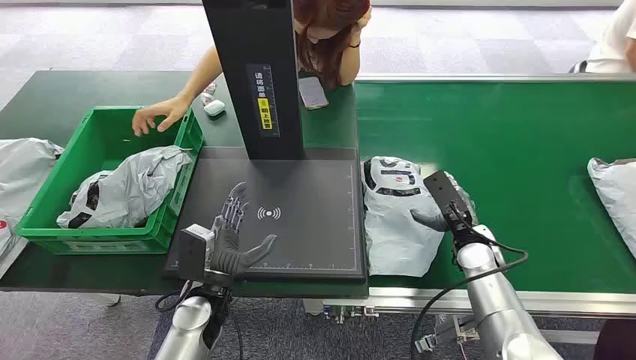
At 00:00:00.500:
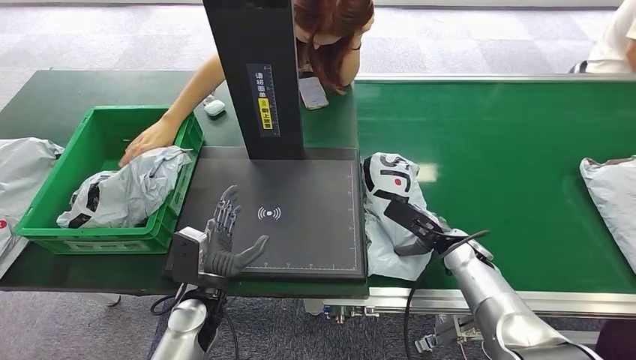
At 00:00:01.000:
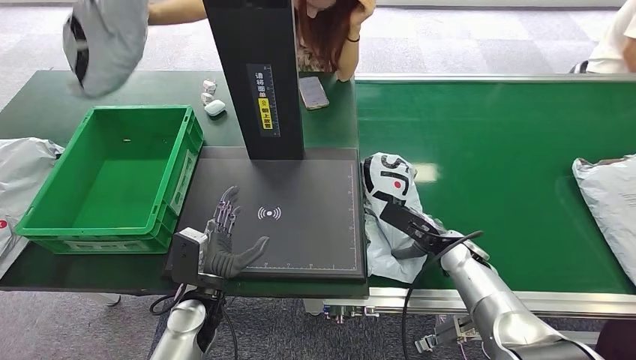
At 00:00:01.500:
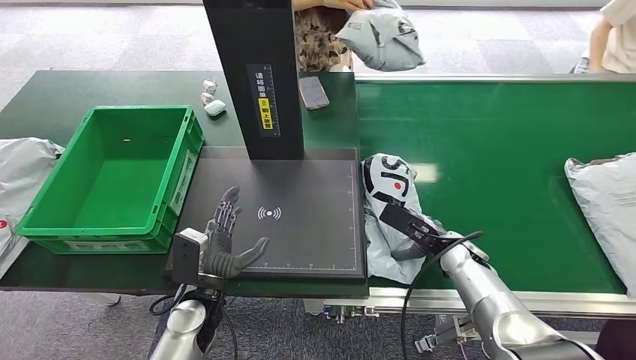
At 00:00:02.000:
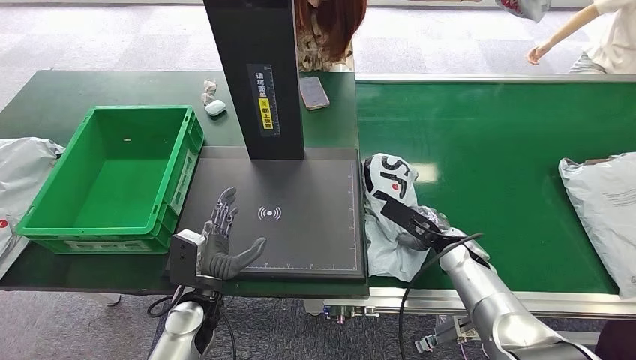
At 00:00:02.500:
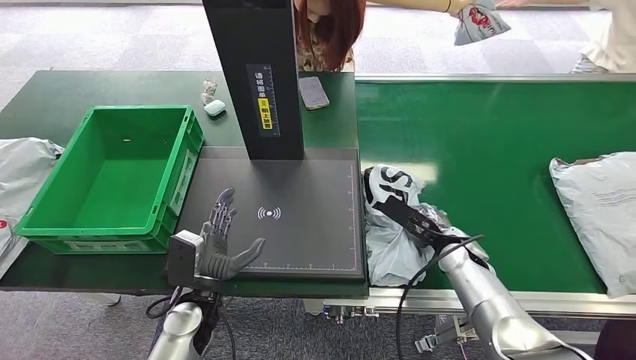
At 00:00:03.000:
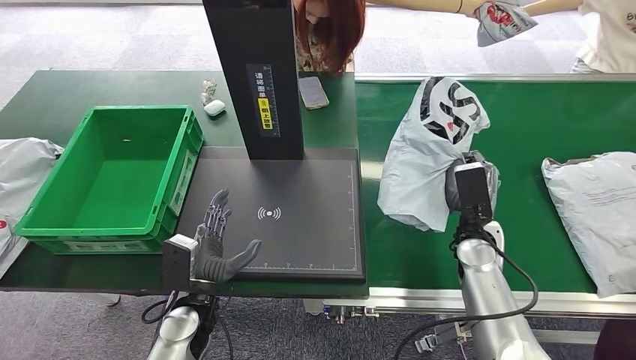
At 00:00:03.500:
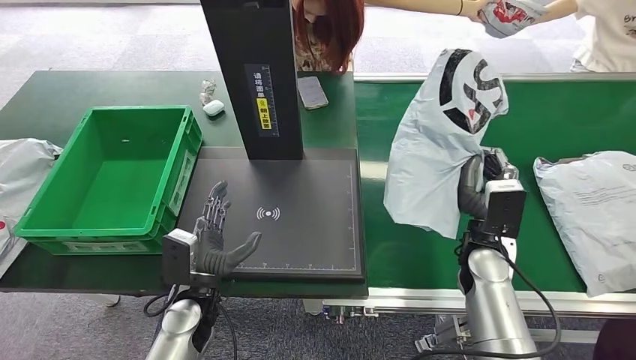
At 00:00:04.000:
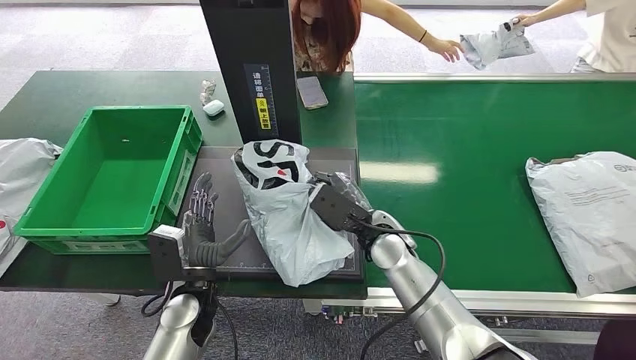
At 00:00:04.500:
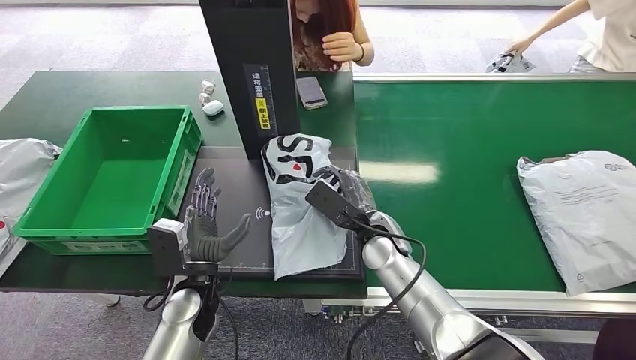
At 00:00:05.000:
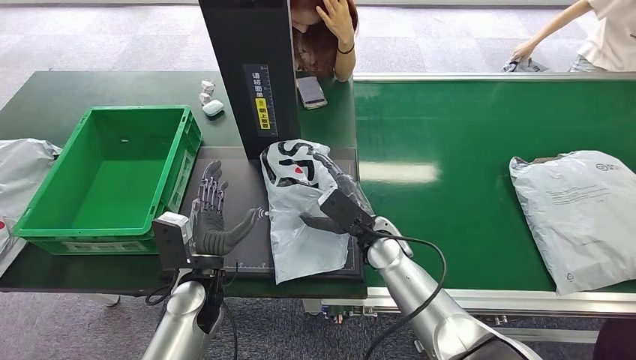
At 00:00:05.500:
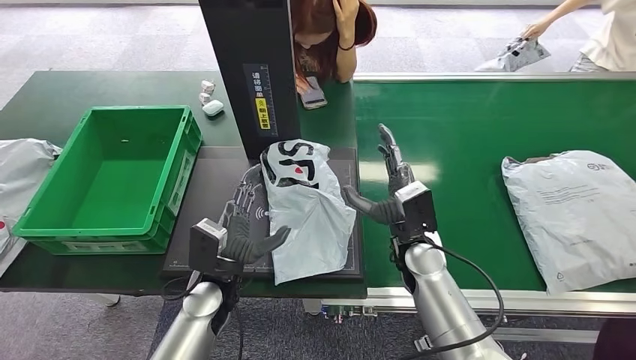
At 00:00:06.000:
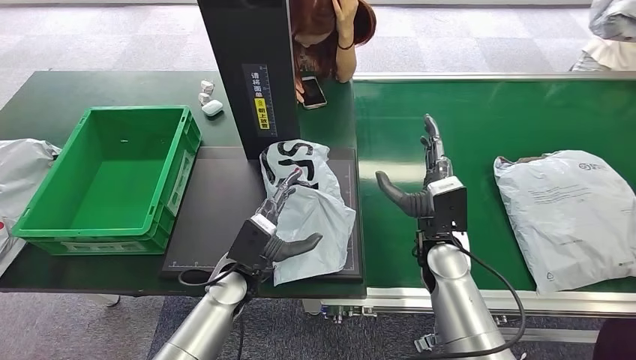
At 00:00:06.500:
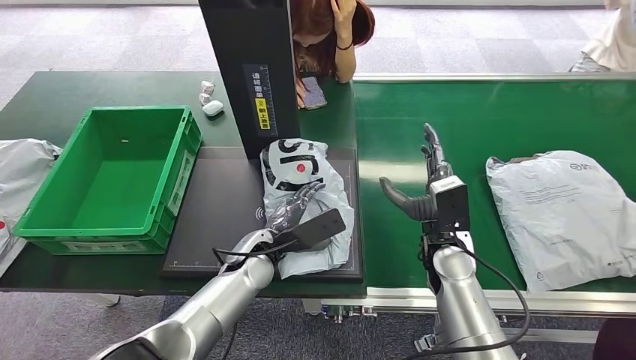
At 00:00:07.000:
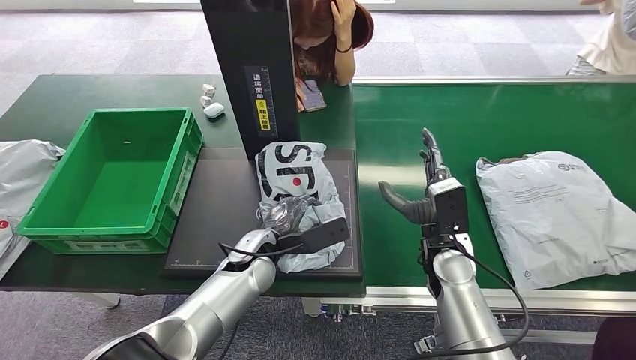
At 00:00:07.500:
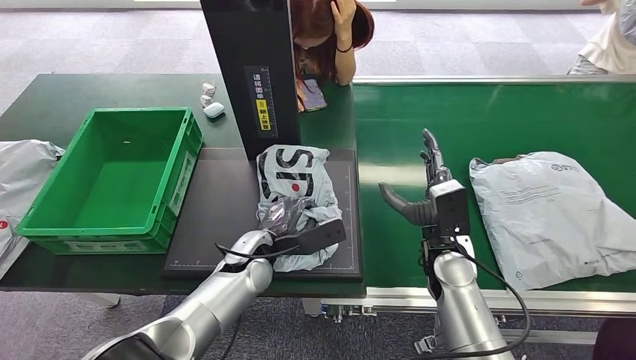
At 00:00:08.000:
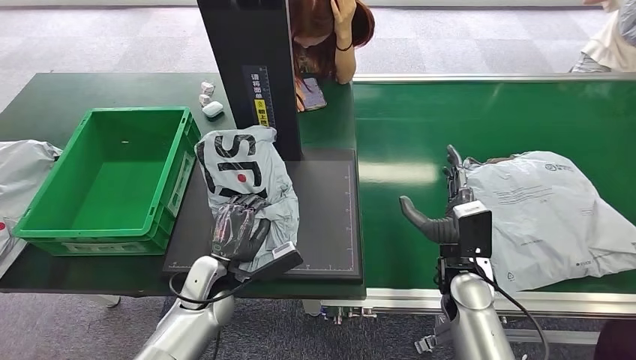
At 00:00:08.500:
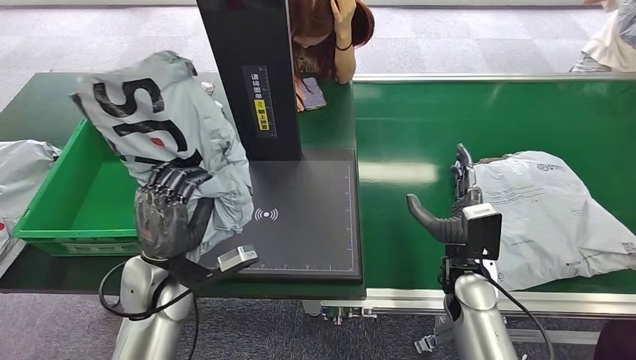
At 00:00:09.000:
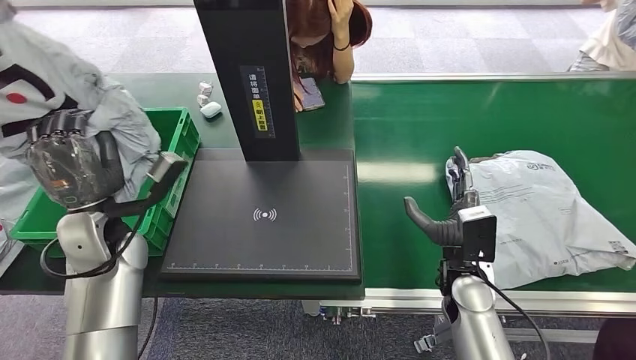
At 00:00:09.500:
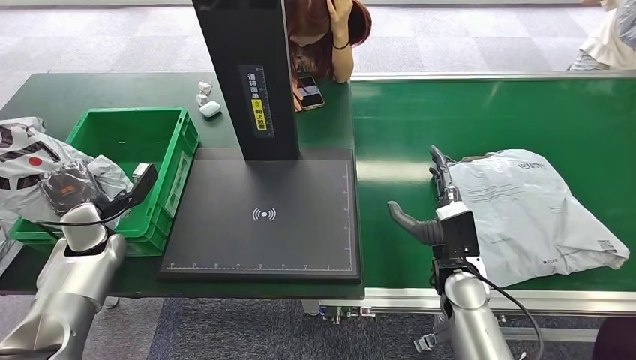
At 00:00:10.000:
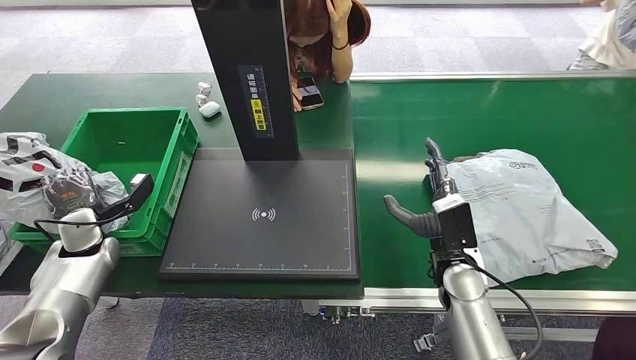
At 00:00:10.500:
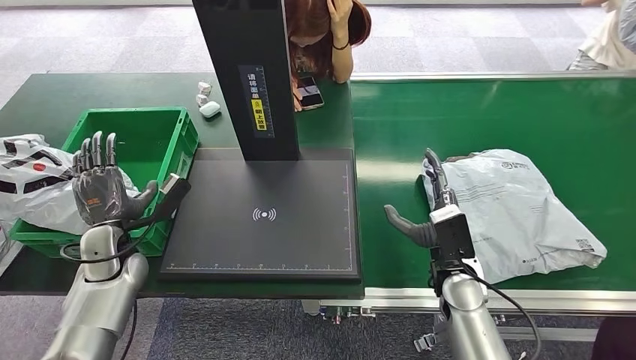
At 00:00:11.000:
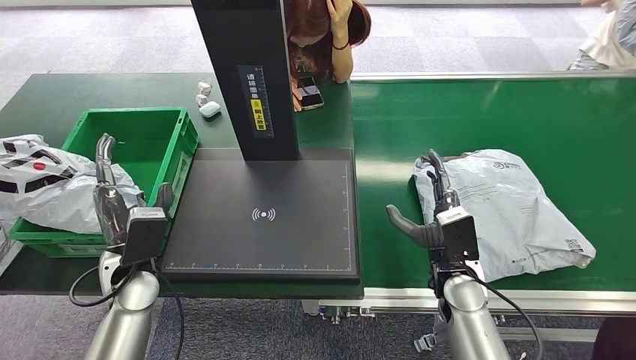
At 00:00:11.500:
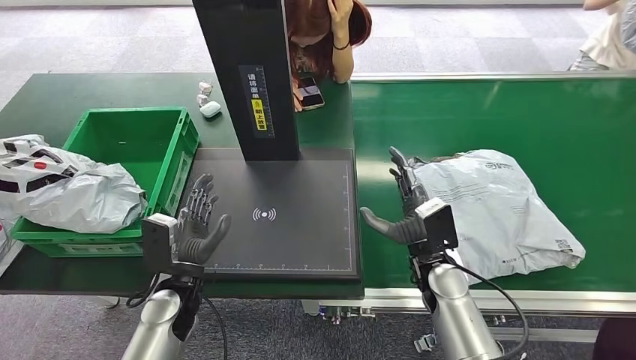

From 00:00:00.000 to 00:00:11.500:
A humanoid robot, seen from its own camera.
Step, from 00:00:00.000 to 00:00:03.000: Pick up the package from the conveyor belt.
Step, from 00:00:03.500 to 00:00:05.000: Place the package onto the inbound machine.
Step, from 00:00:05.500 to 00:00:08.000: Pick up the package from the inbound machine.
Step, from 00:00:08.500 to 00:00:11.500: Place the package into the parcel locker.
From 00:00:09.500 to 00:00:11.500: The left hand heads to the right and backward, covering some 20 cm.
